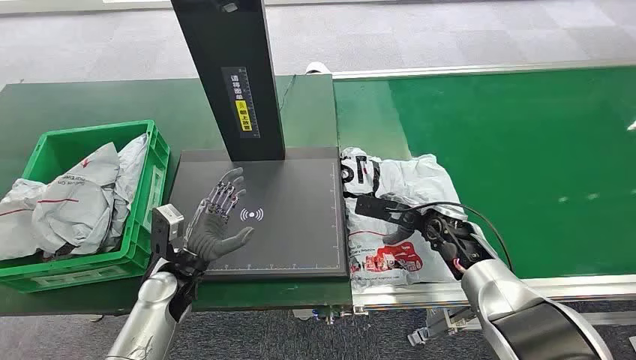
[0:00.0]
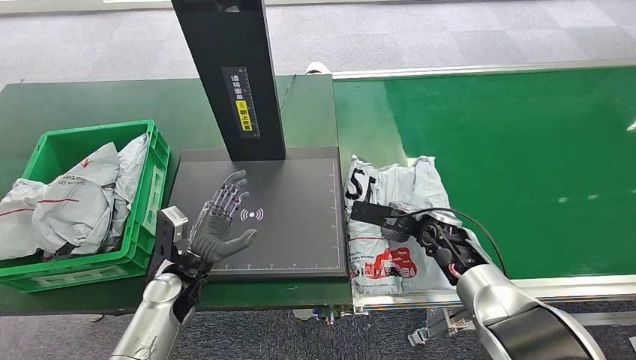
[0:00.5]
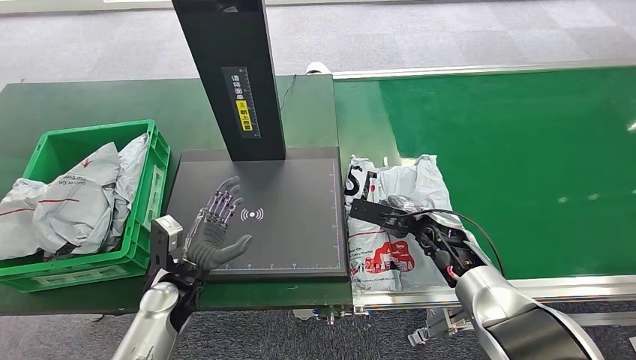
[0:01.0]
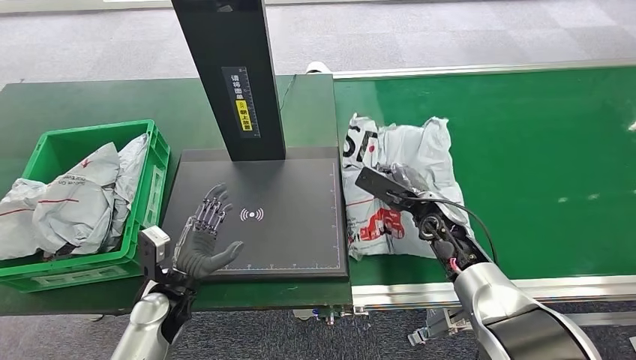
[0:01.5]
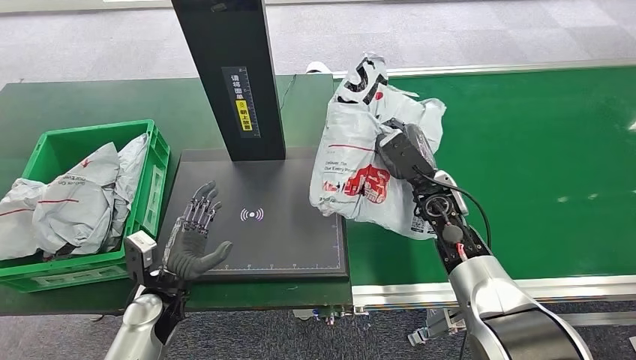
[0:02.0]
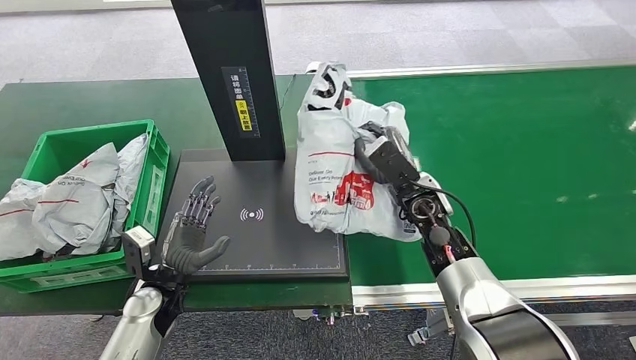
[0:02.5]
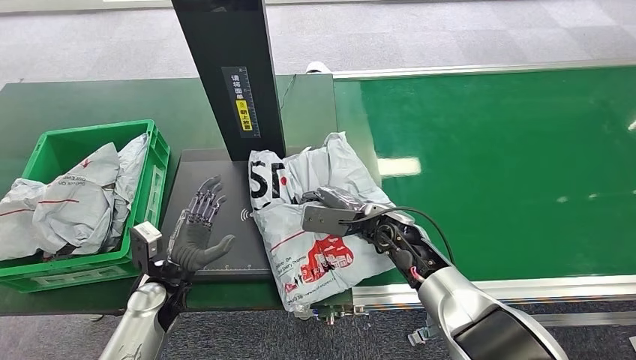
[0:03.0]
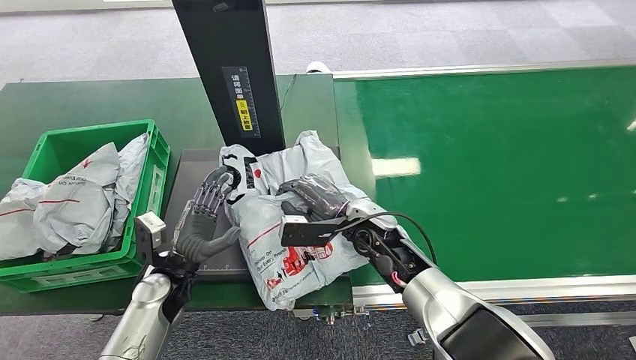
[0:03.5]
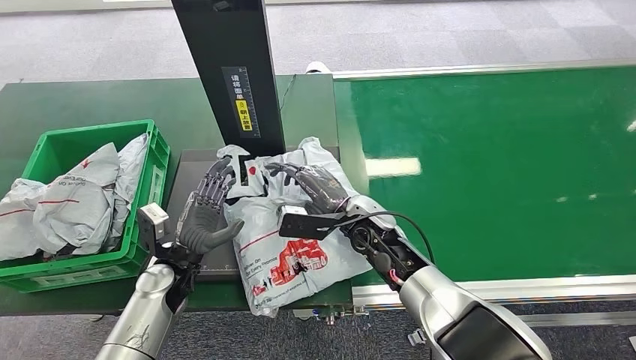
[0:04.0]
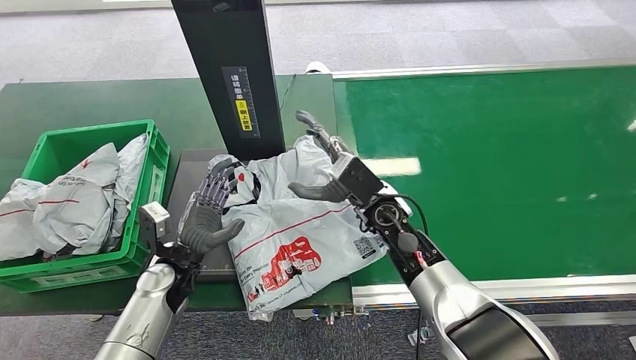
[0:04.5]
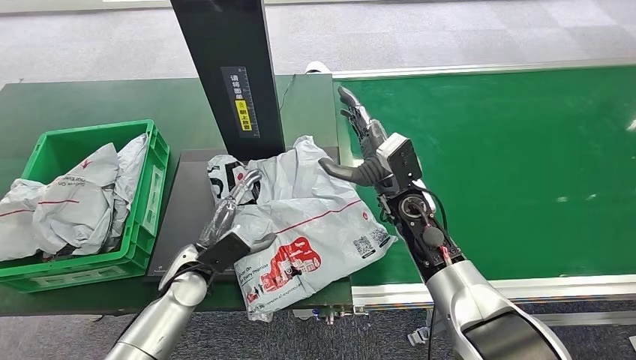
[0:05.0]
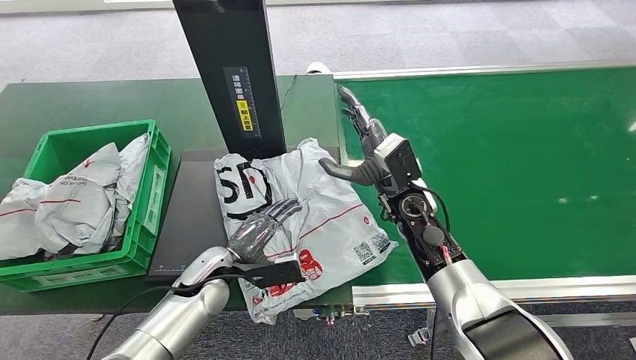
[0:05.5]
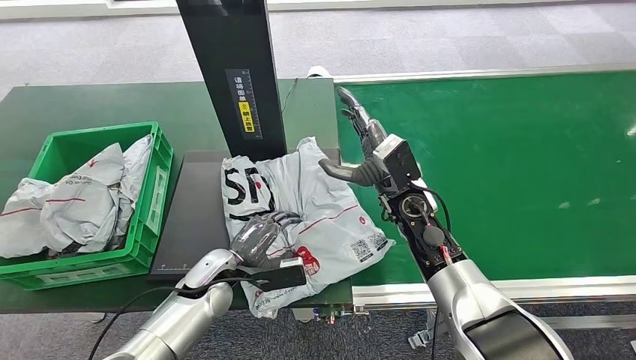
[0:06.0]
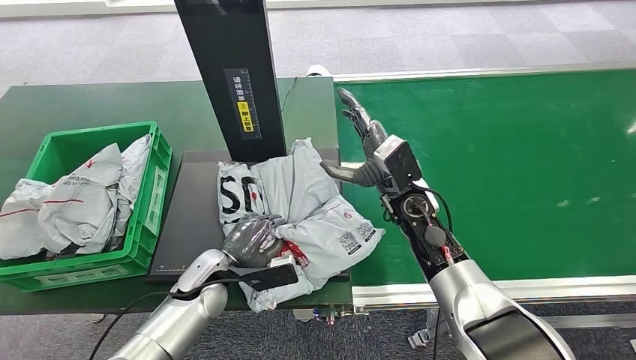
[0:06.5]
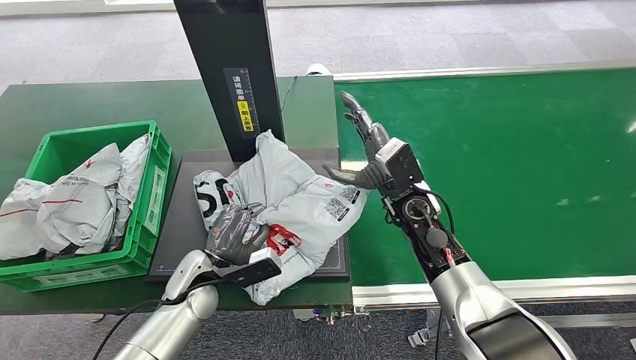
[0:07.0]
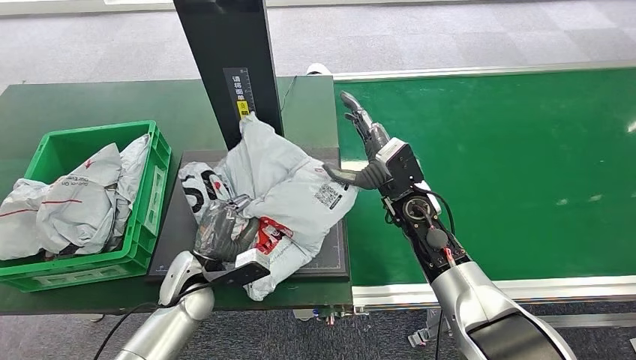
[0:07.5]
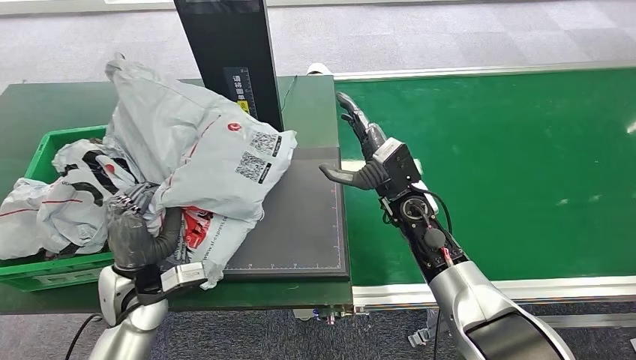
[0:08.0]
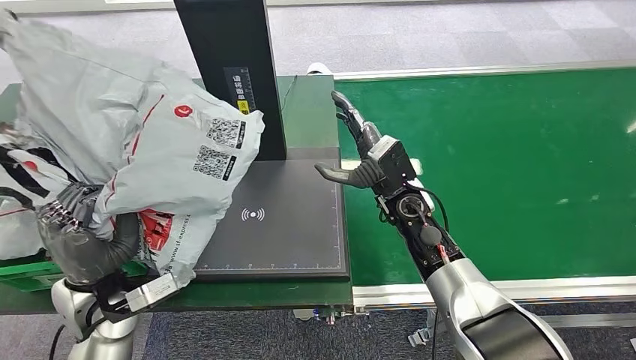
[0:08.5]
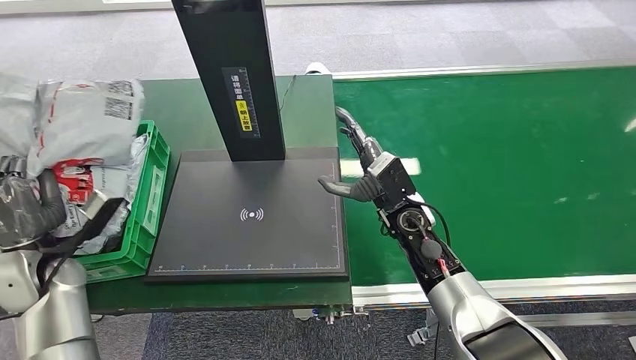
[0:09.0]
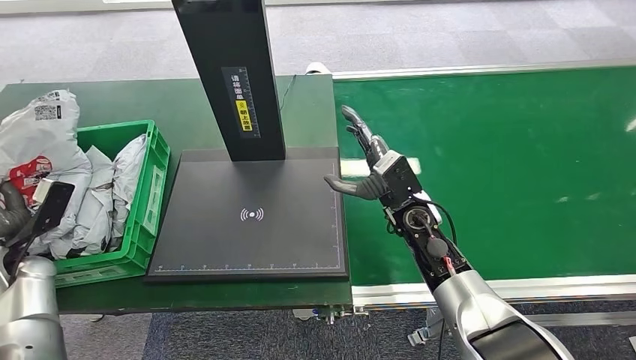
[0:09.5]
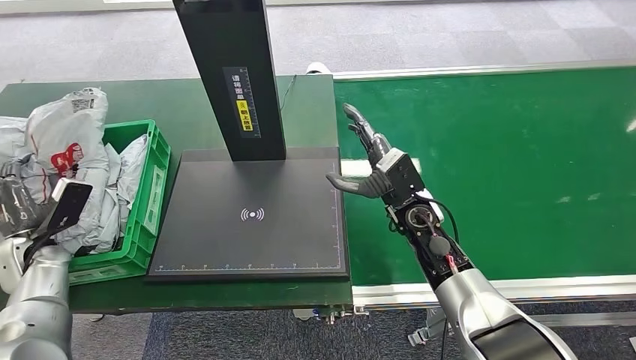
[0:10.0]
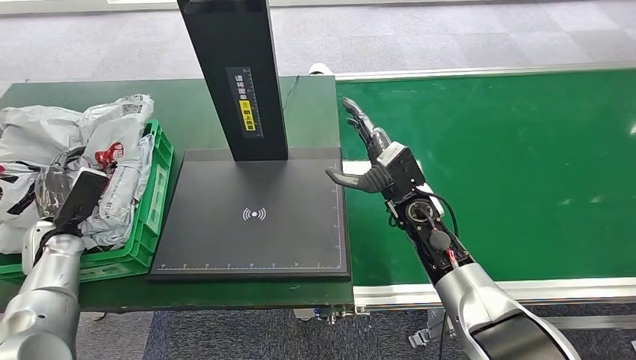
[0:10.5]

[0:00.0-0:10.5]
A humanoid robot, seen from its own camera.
Step, 0:00.0 to 0:02.0: Pick up the package from the conveyor belt.
Step, 0:02.5 to 0:04.5: Place the package onto the inbound machine.
Step, 0:05.0 to 0:08.0: Pick up the package from the inbound machine.

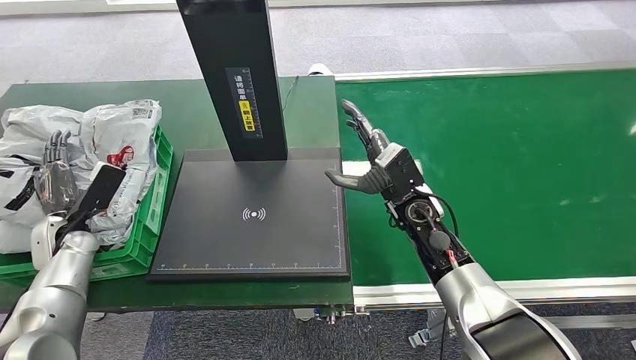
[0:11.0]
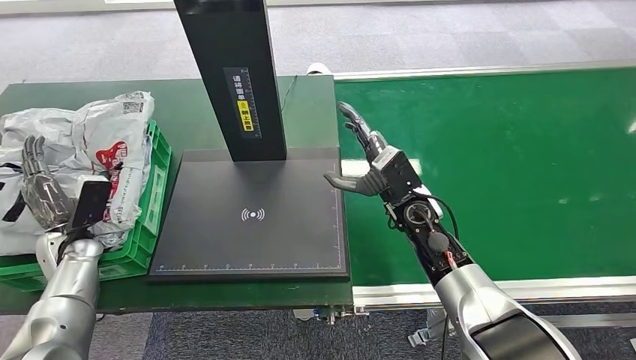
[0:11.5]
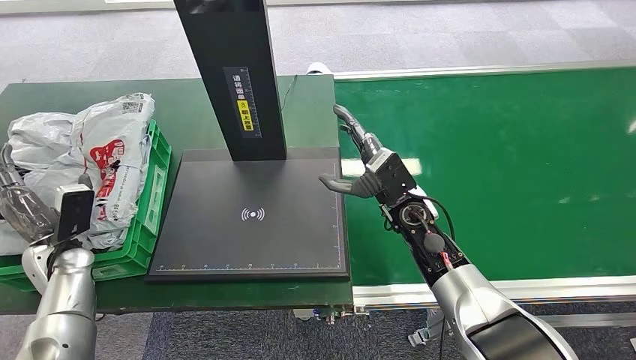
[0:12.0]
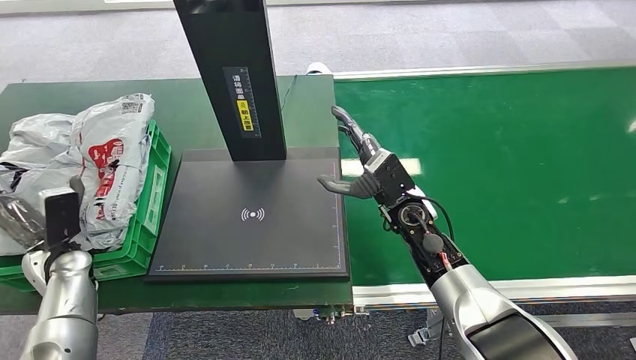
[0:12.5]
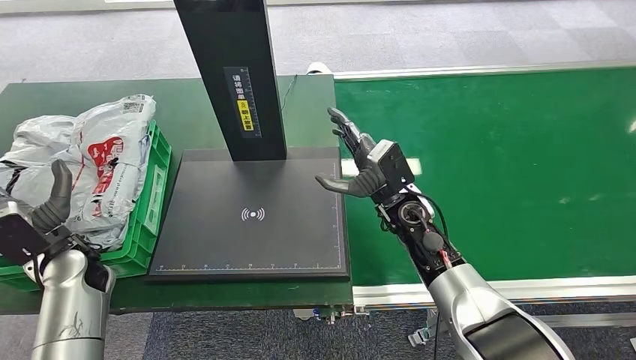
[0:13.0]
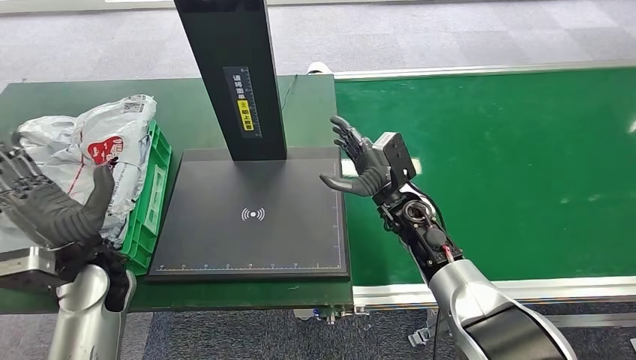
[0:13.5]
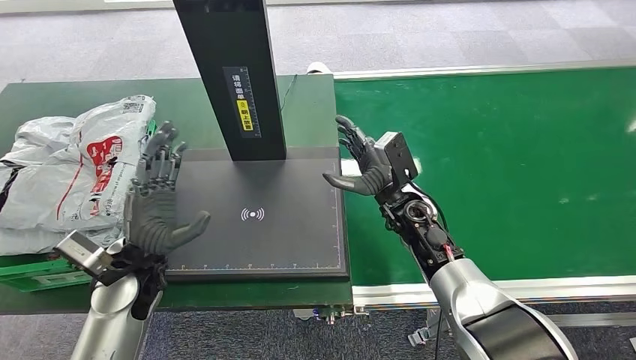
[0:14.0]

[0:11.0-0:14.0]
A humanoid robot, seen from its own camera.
Step, 0:11.0 to 0:14.0: Place the package into the parcel locker.
0:12.5 to 0:14.0: The left hand shifts about 20 cm to the right.
